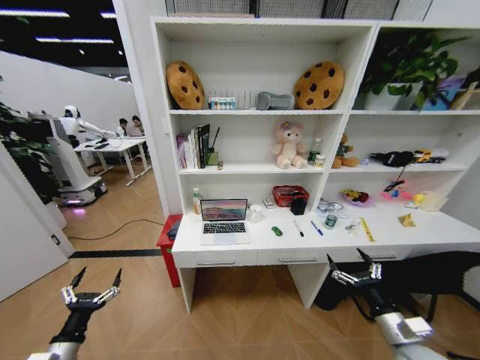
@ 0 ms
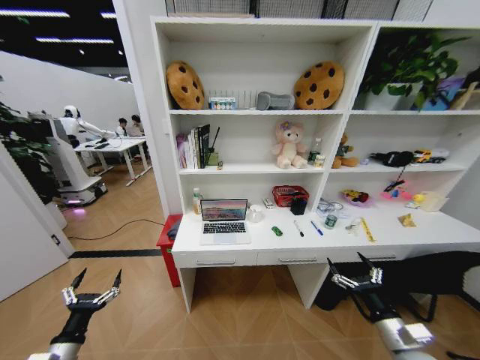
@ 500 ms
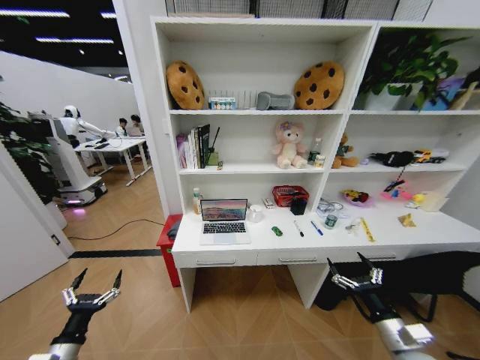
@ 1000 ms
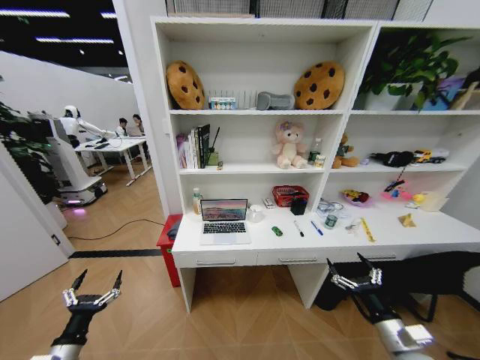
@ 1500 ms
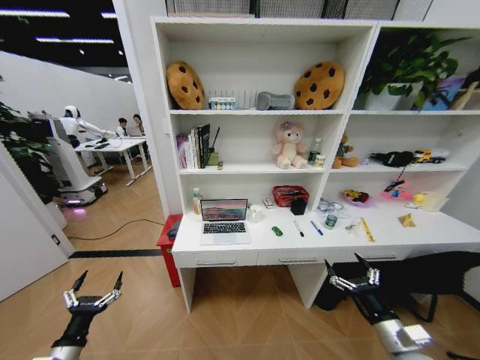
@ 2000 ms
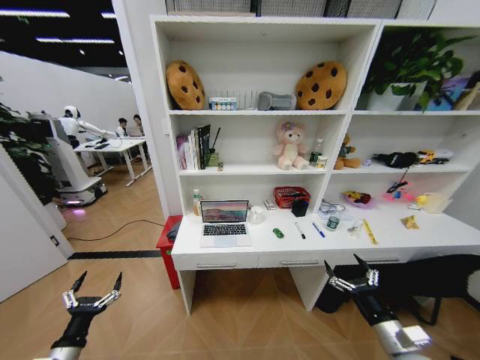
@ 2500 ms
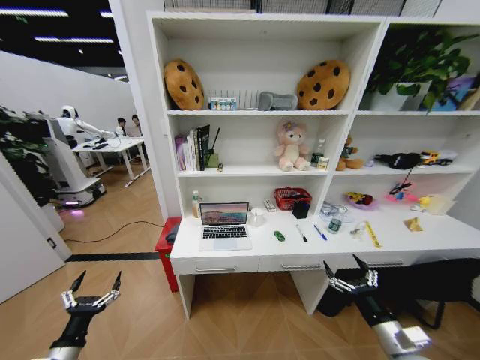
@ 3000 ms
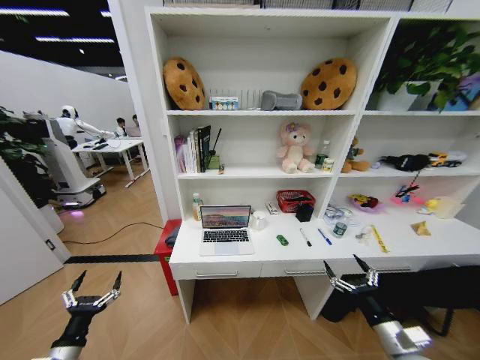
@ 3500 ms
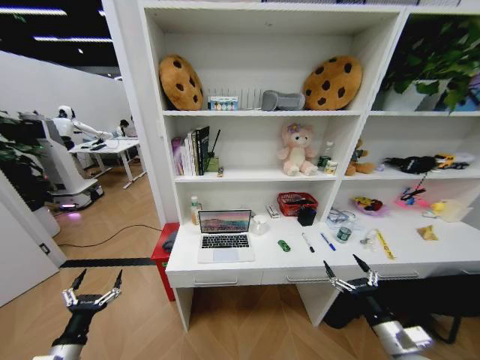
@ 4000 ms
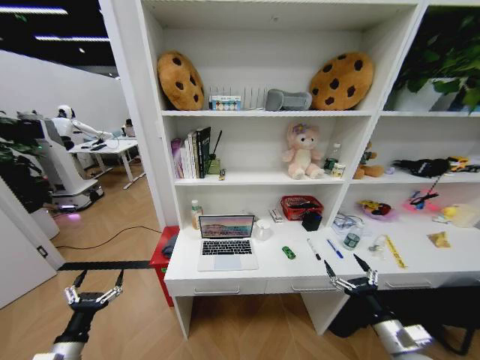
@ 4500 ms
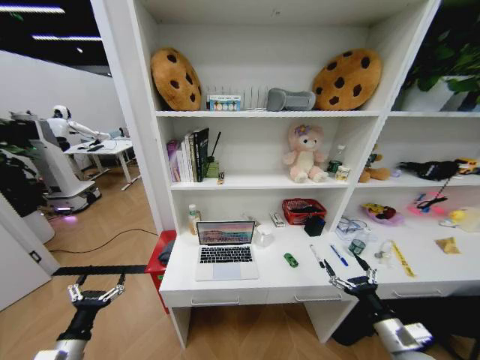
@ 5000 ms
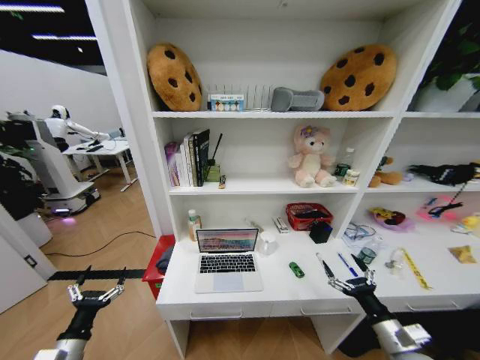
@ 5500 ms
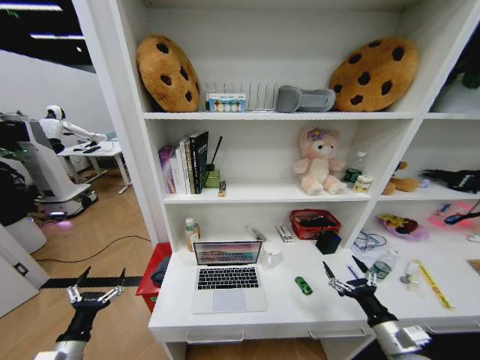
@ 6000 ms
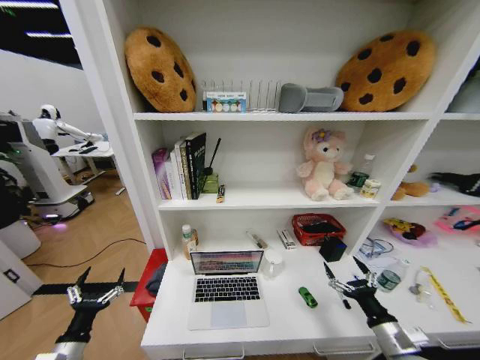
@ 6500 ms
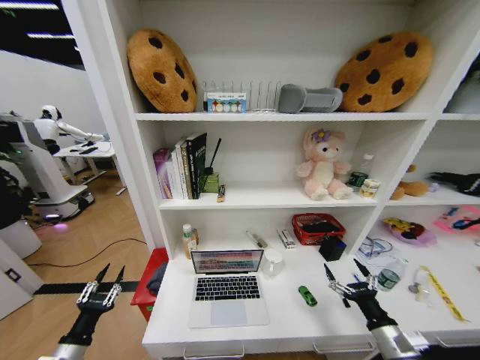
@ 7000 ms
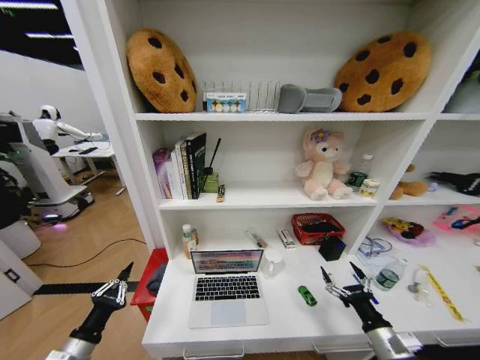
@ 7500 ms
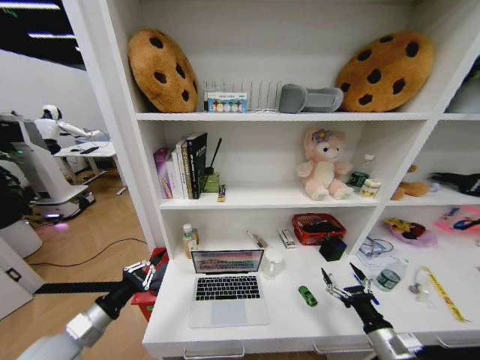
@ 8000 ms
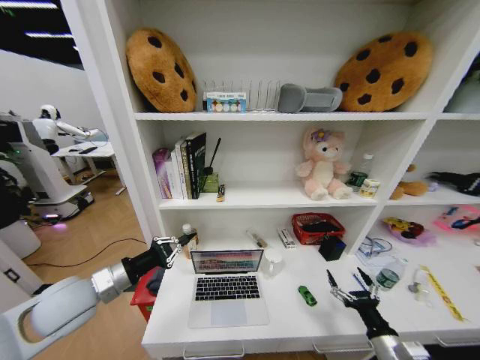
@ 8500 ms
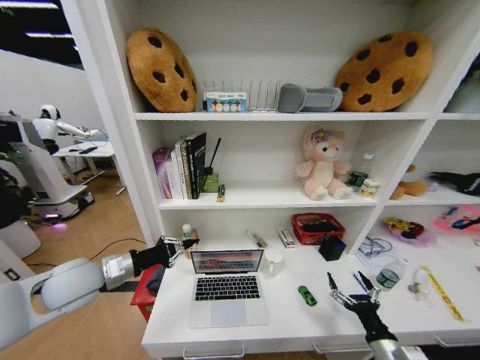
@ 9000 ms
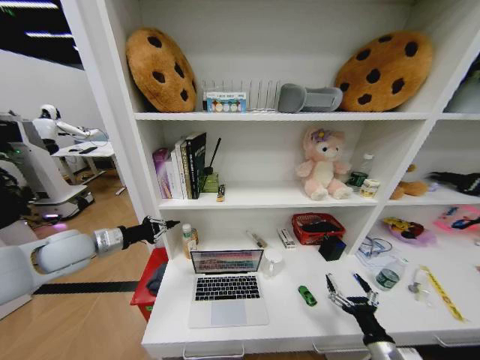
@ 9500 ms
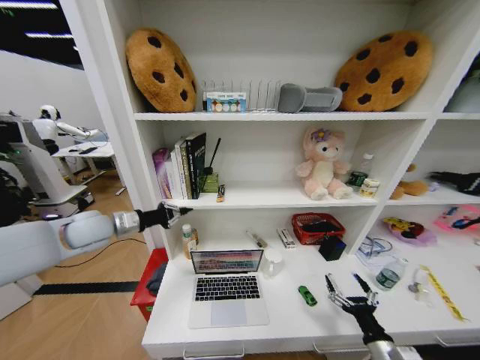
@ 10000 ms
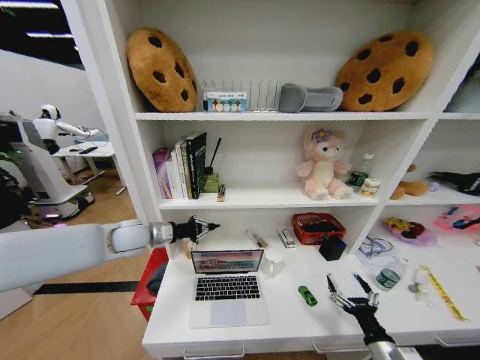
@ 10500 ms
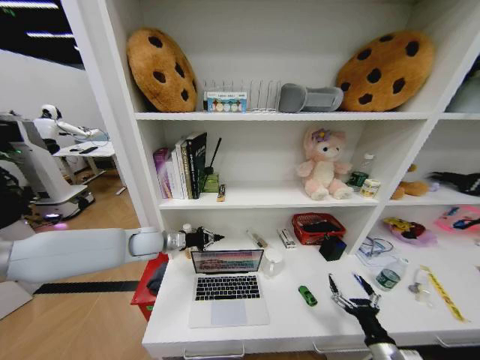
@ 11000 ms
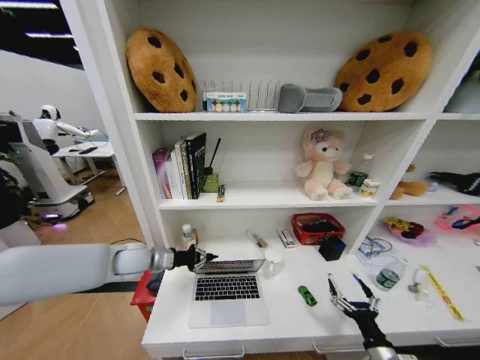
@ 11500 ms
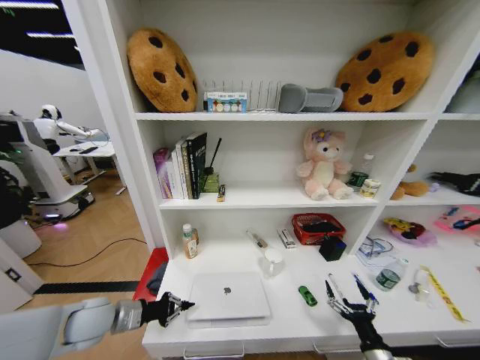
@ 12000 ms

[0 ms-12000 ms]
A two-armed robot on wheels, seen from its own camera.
Task of the whole recording: Organize the objects on the table.
6000 ms to 8000 ms: The left gripper moves upward, some 10 cm, and closes up.
8000 ms to 10000 ms: The left gripper moves forward and upward, about 30 cm.
10000 ms to 12000 ms: The left gripper is displaced downward and backward by roughly 20 cm.

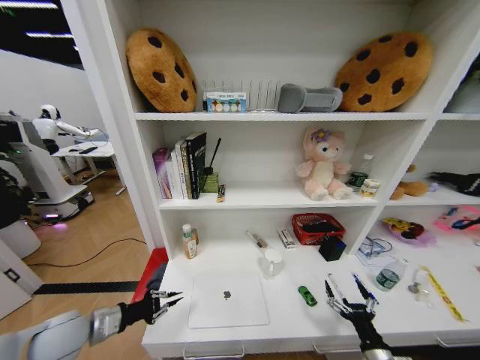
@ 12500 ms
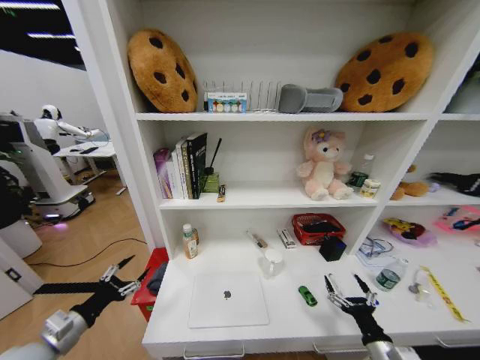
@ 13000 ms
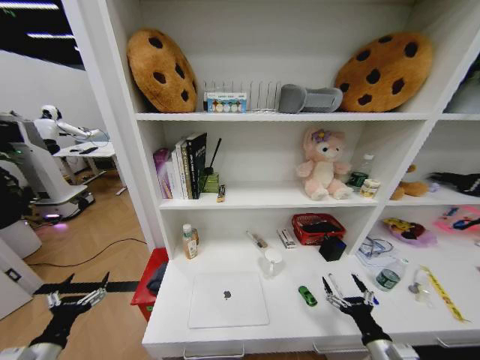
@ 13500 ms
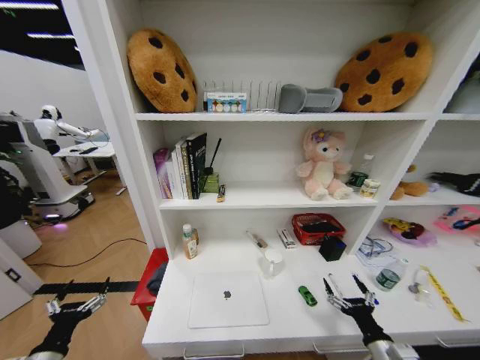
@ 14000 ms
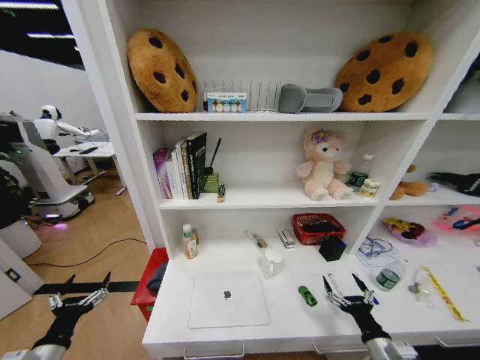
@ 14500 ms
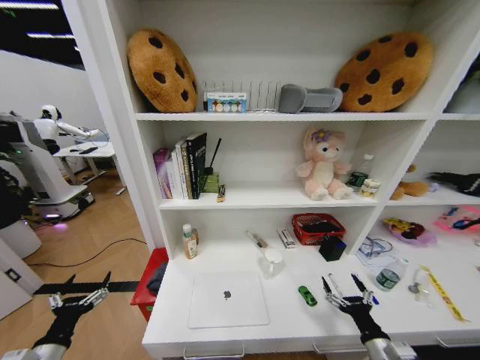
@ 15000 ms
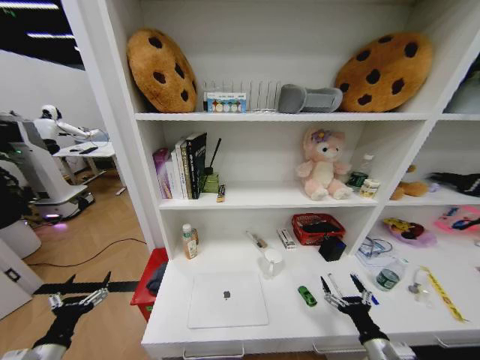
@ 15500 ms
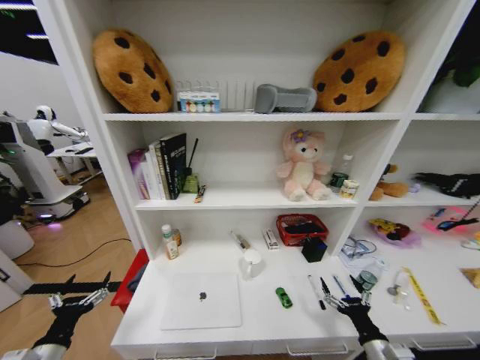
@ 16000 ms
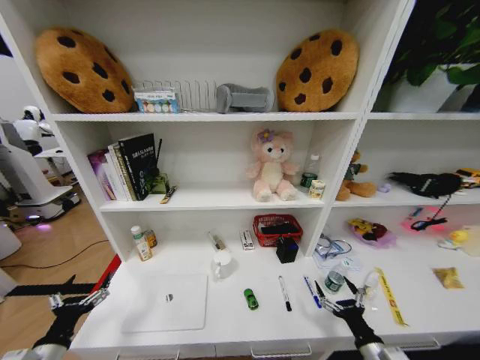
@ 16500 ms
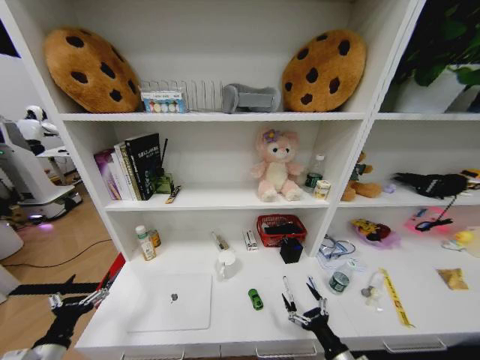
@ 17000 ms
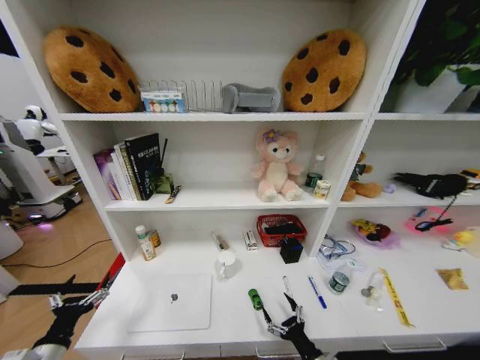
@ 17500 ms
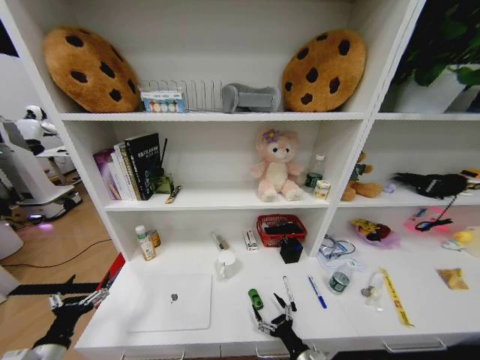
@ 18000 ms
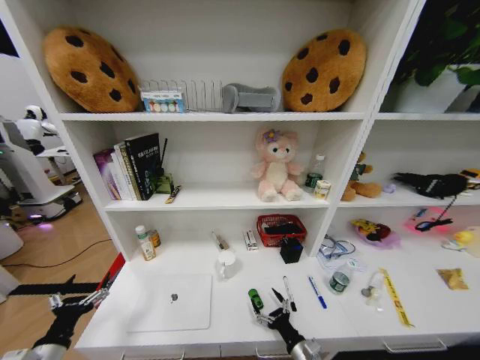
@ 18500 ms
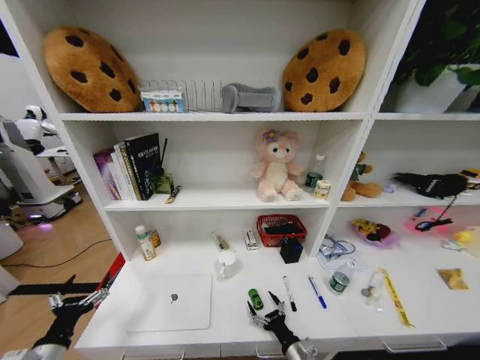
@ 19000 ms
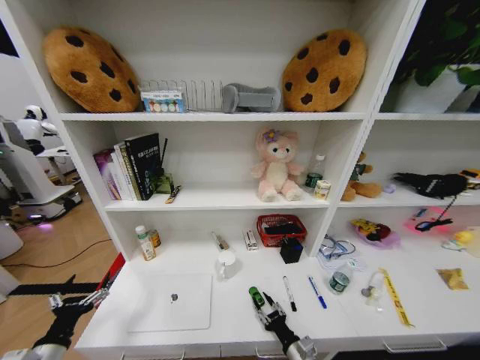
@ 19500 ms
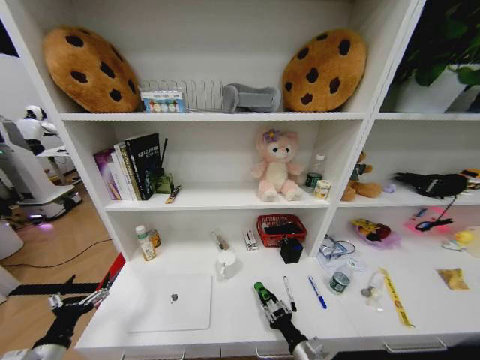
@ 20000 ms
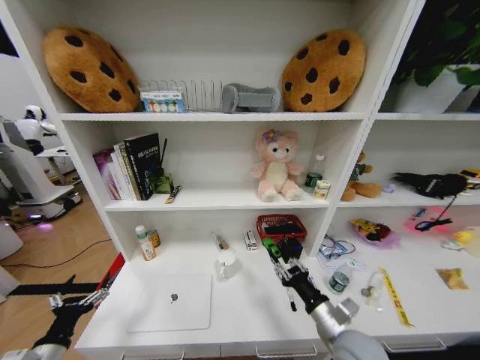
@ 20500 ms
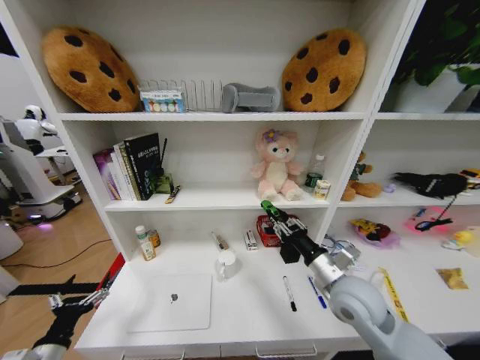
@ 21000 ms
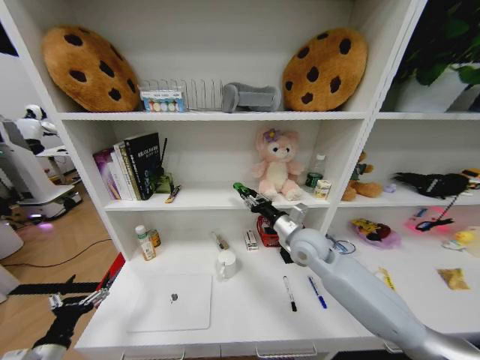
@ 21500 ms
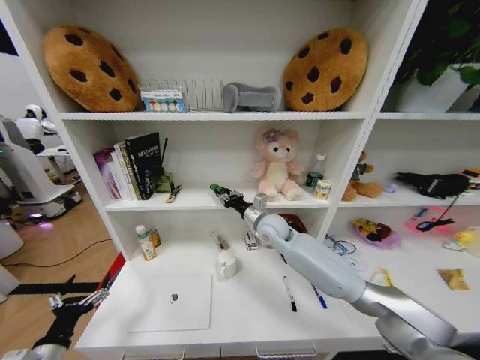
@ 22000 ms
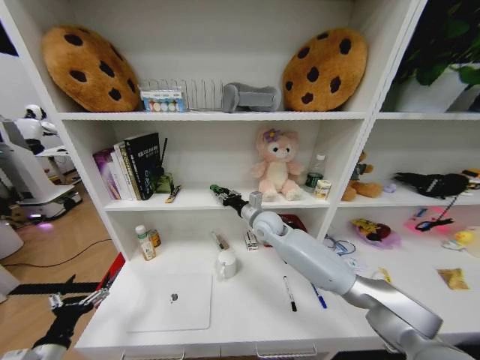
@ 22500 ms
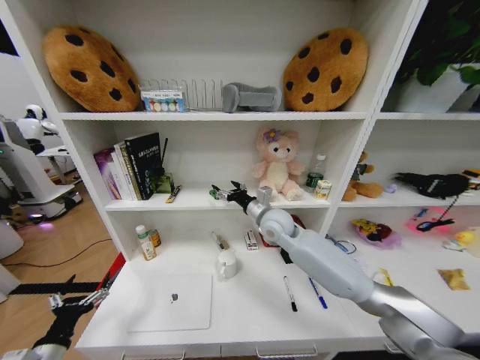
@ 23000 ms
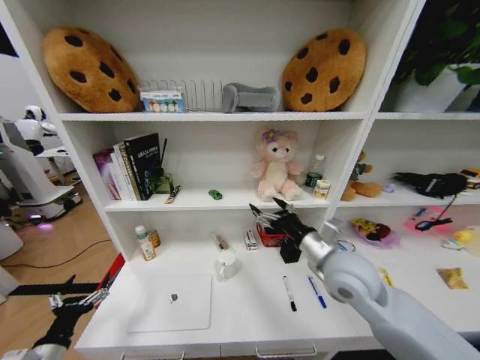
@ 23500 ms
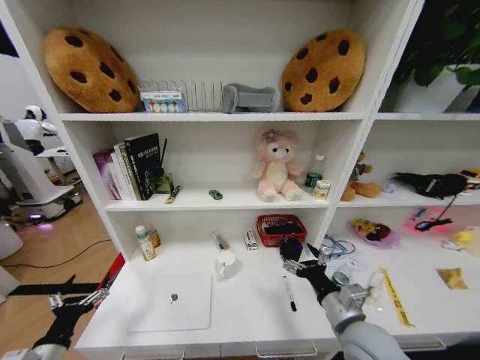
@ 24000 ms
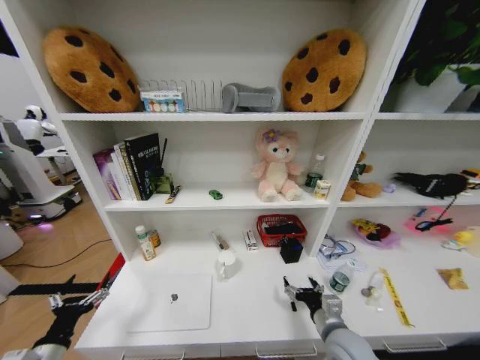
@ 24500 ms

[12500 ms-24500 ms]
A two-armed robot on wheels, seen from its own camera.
Task of the whole recording: Organize the objects on the table.
12500 ms to 14500 ms: The left gripper travels backward and downward by about 10 cm, and opens its fingers.
16500 ms to 18500 ms: The right gripper travels to the left and downward by approximately 15 cm.
18500 ms to 20500 ms: The right gripper heads upward, covering approximately 20 cm, and closes up.
20500 ms to 22500 ms: The right gripper travels forward and to the left by roughly 35 cm.
22500 ms to 24500 ms: The right gripper is displaced backward, to the right and downward by about 35 cm, and opens its fingers.

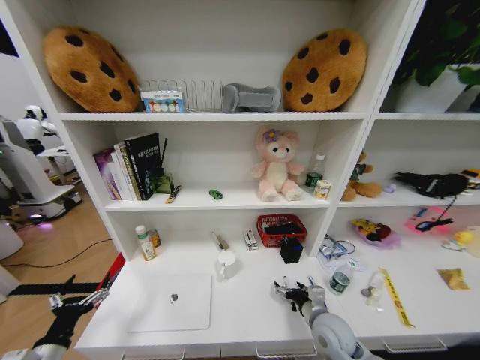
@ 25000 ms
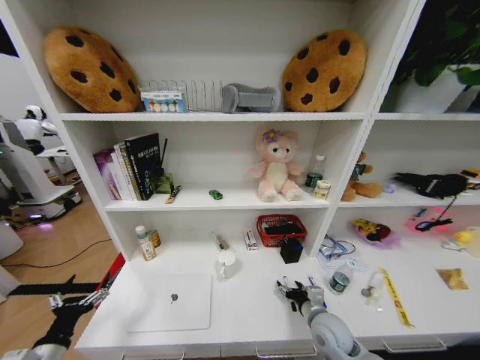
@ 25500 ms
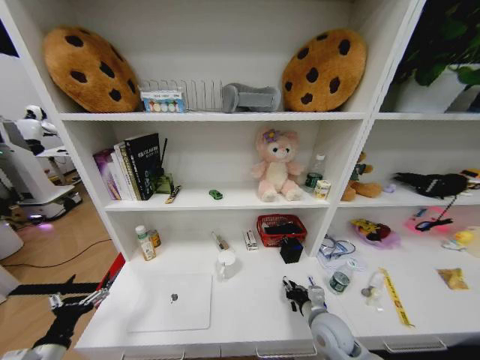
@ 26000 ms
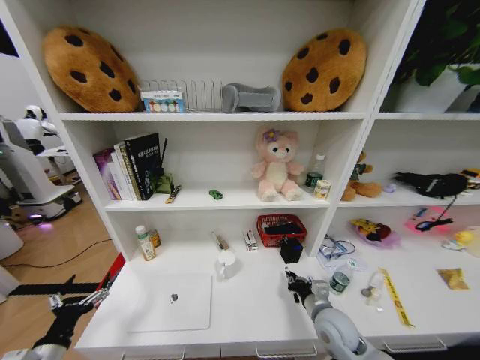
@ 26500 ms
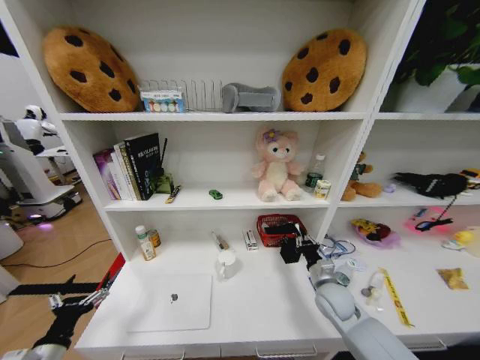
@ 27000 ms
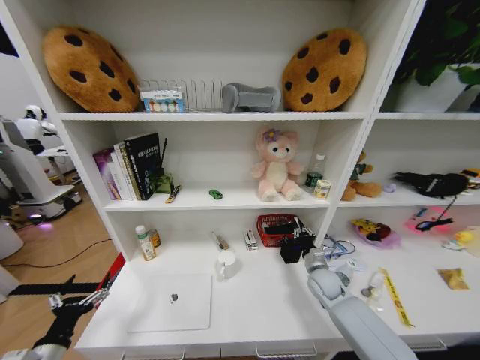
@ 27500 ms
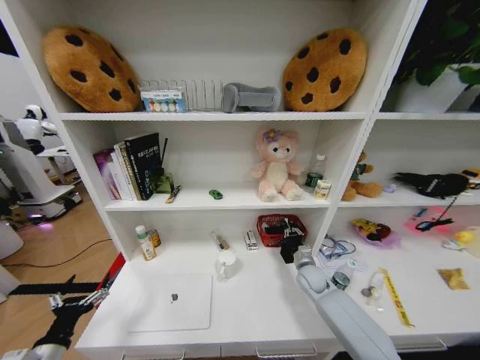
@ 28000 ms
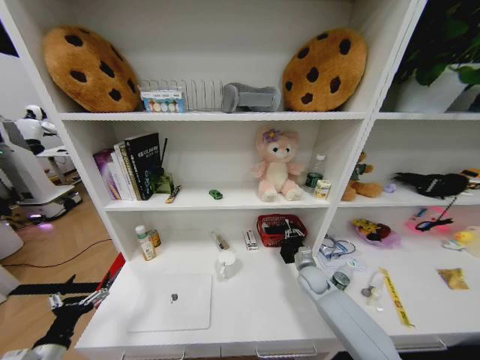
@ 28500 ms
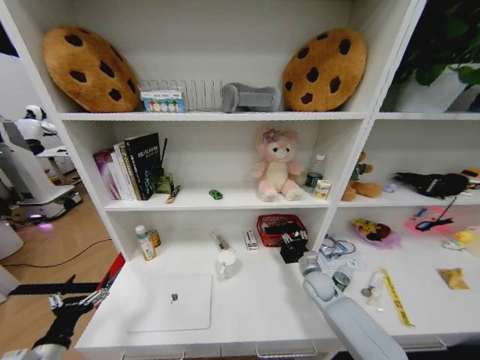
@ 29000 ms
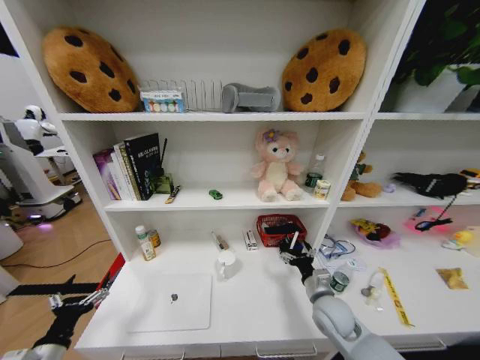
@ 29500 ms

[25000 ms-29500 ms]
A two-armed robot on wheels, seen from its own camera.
Task of the whole recording: Organize the objects on the table.
25000 ms to 27000 ms: The right gripper is displaced forward by about 5 cm, and closes up.
27000 ms to 29500 ms: The right gripper goes forward and returns, about 10 cm each way, and opens its fingers.
